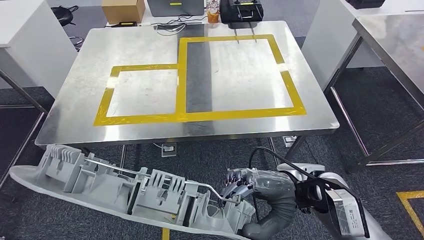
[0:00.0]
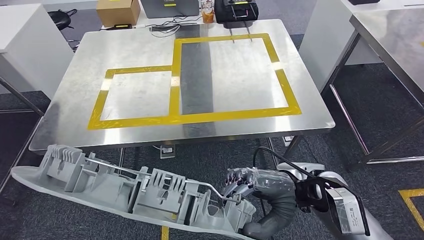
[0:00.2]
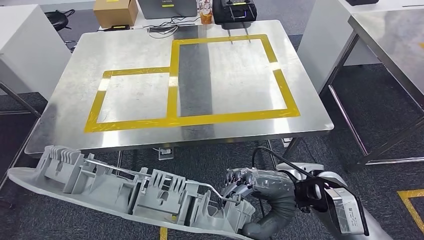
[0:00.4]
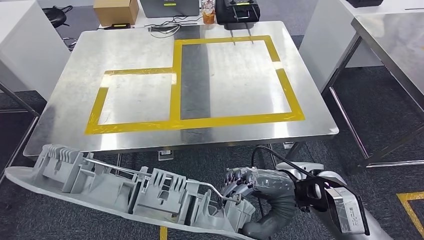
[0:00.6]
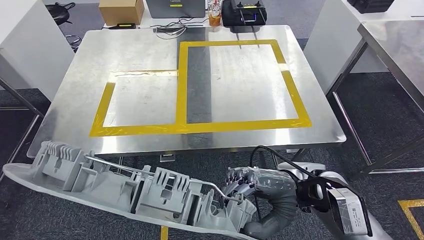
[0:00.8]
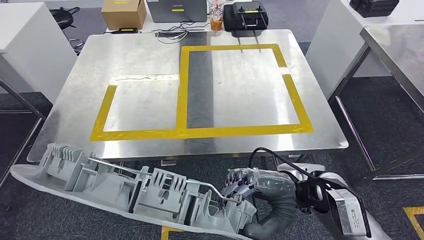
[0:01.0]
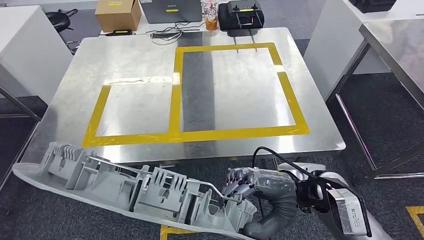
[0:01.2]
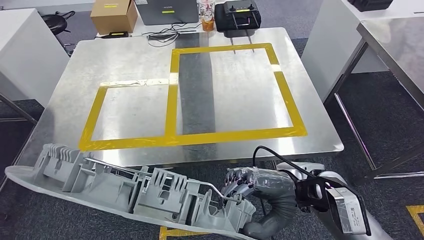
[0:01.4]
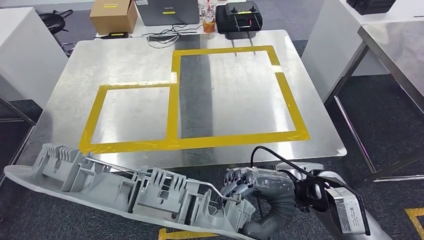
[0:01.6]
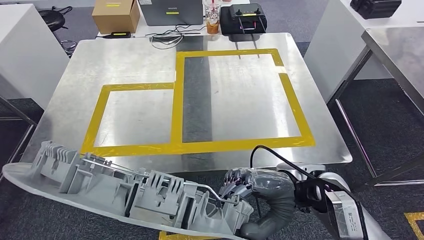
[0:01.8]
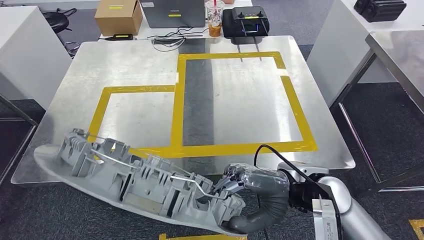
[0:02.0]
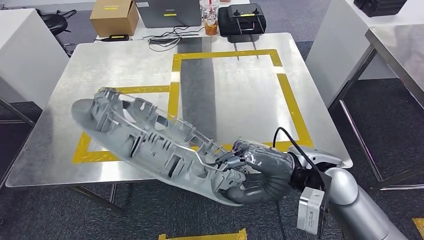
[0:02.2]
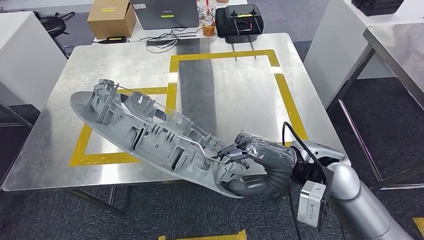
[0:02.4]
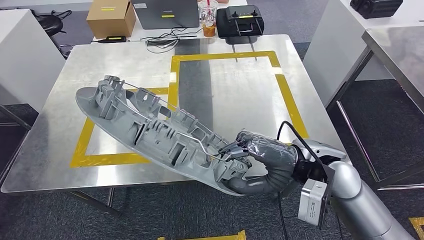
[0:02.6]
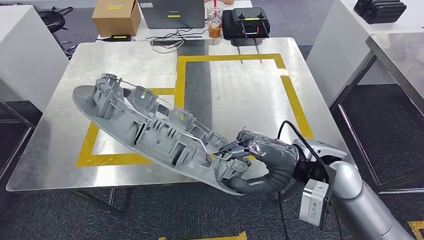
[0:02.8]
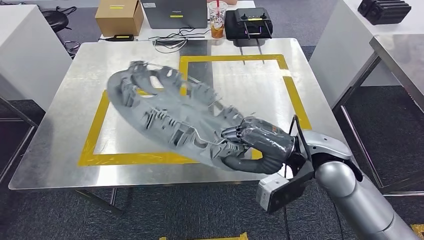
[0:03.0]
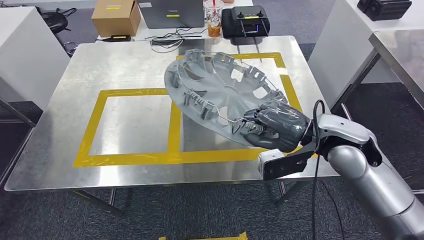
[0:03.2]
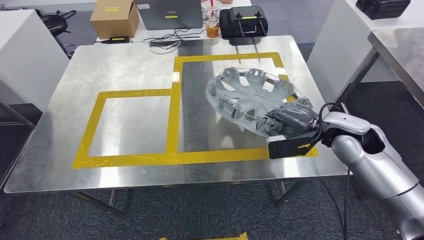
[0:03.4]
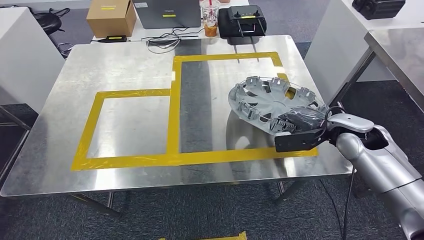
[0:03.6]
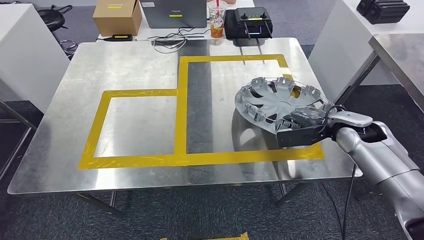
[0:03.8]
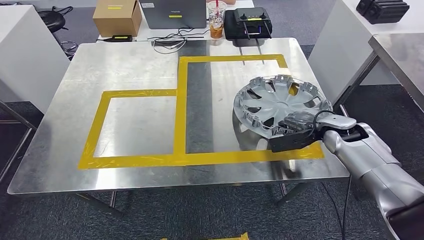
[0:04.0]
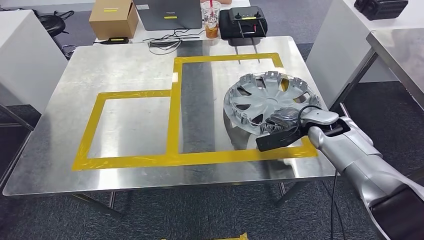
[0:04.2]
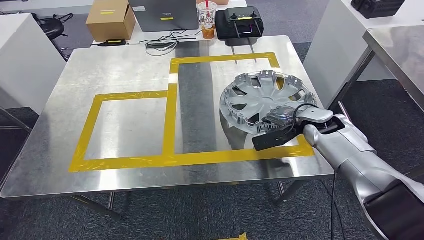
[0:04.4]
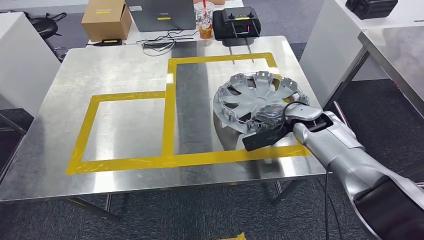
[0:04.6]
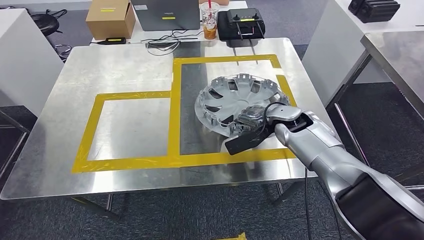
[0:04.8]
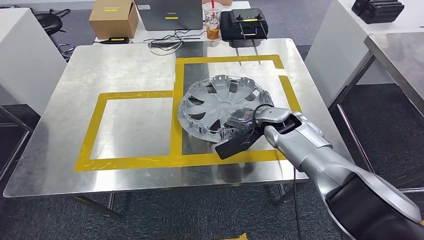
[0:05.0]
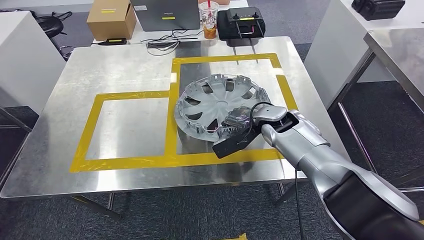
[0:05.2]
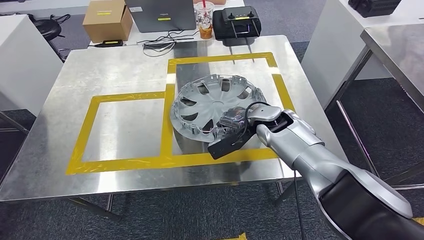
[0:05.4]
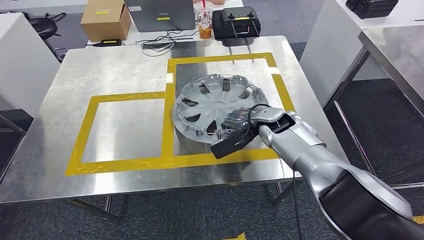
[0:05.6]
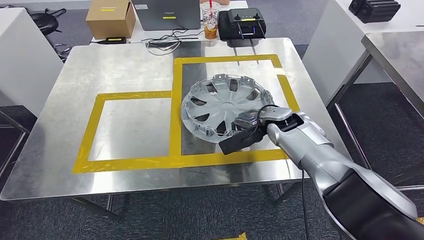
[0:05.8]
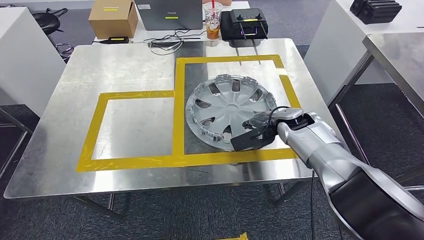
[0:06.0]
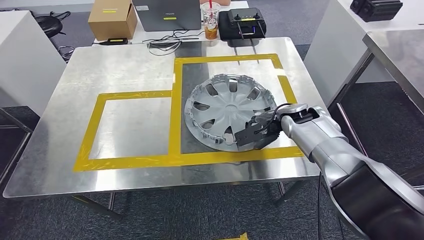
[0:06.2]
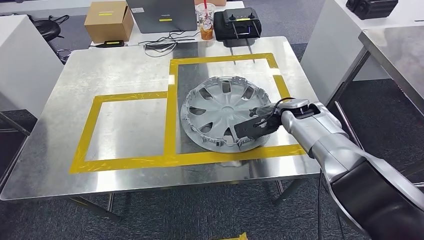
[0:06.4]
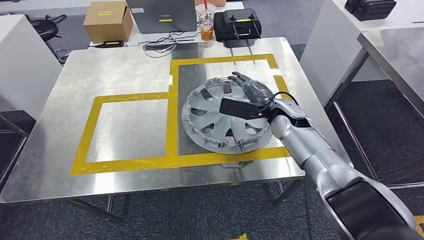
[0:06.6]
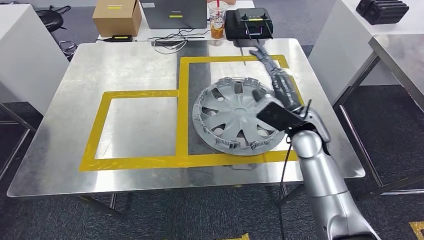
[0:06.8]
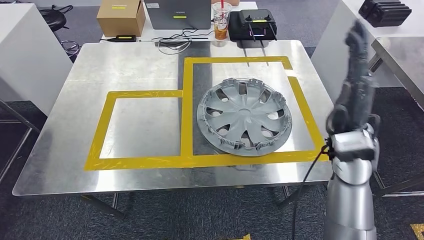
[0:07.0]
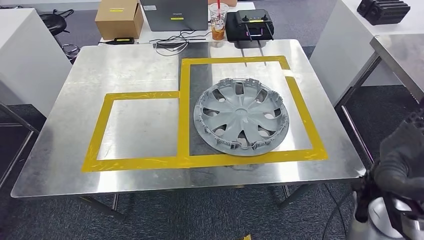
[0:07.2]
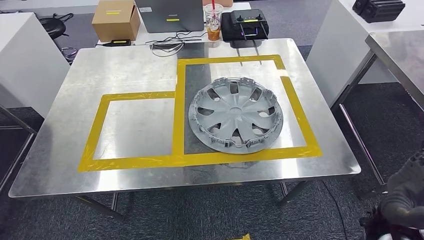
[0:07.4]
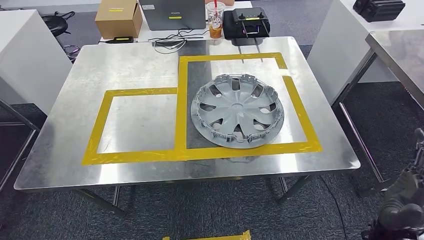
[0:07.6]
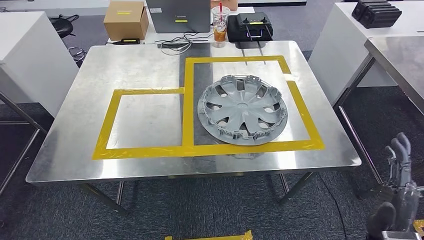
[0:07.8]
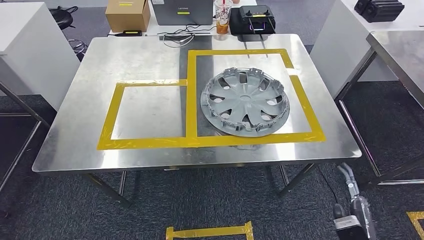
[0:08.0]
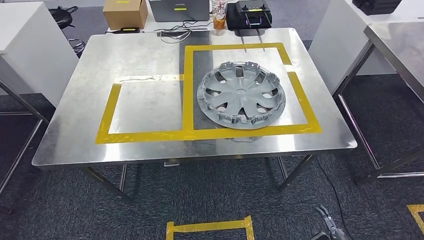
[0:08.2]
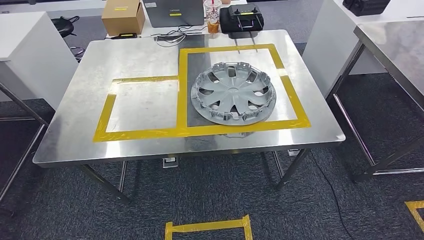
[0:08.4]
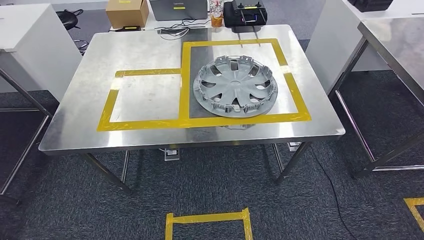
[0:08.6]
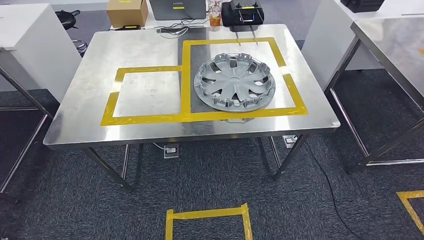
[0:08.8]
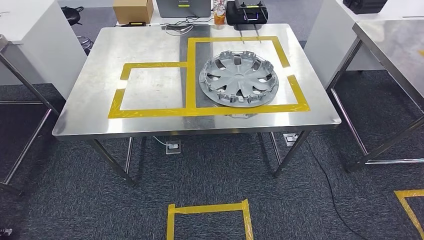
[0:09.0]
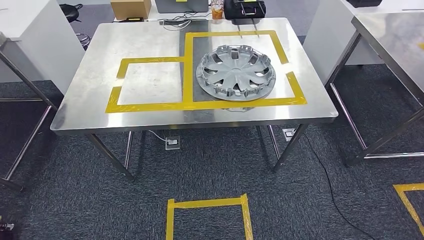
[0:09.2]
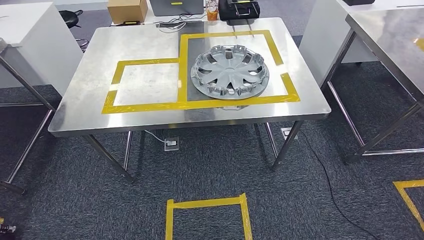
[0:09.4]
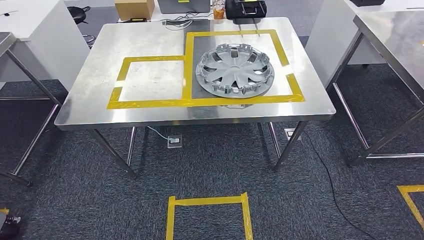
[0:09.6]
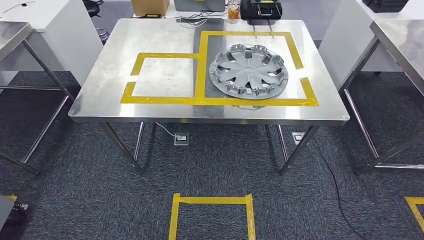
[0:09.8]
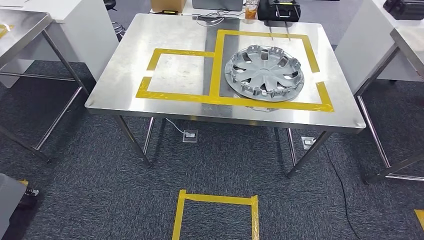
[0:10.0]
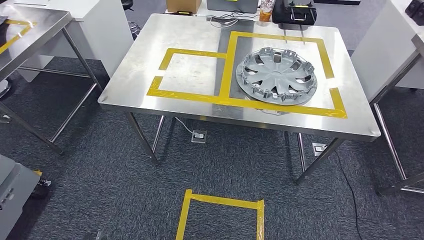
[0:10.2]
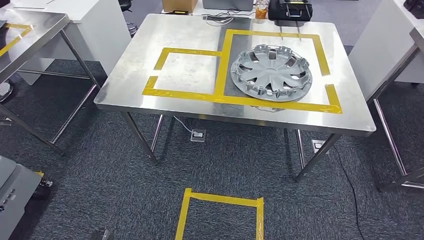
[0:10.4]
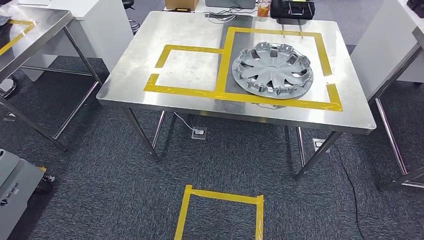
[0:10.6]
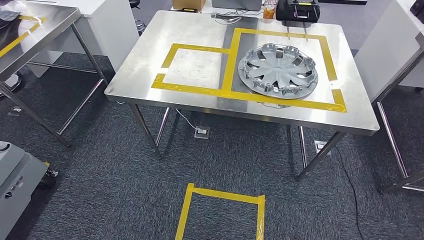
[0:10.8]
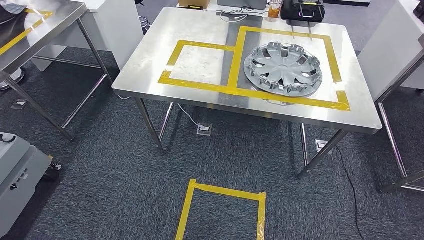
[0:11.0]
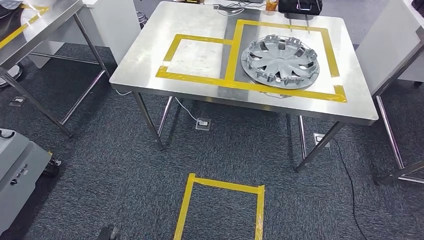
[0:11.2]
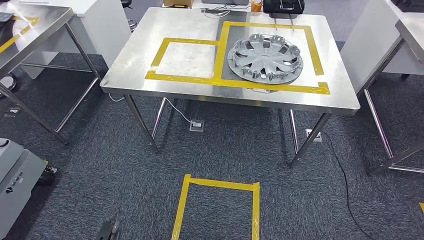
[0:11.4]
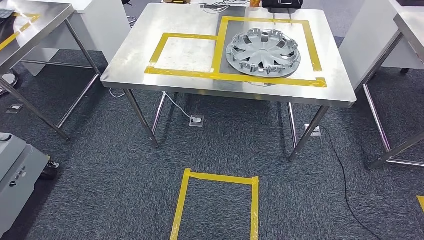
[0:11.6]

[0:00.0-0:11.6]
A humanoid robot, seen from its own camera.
Step, 0:00.0 to 0:06.8: Insert the small component into the corresponding slot on the workbench.
Step, 0:07.0 to 0:11.6: Return to the initial position at the workbench.
